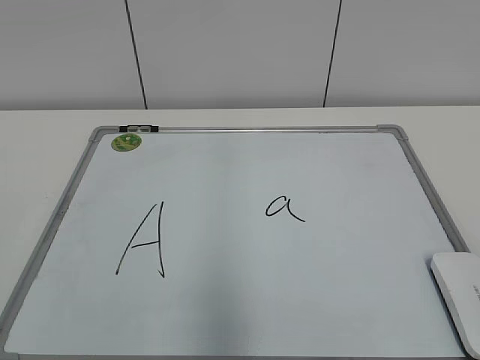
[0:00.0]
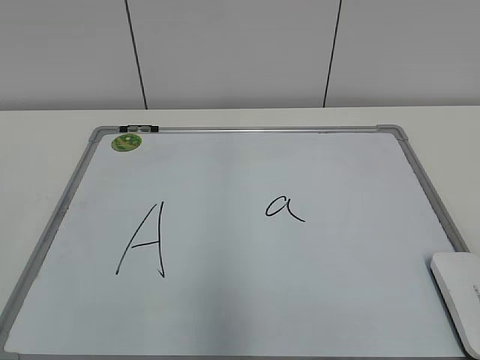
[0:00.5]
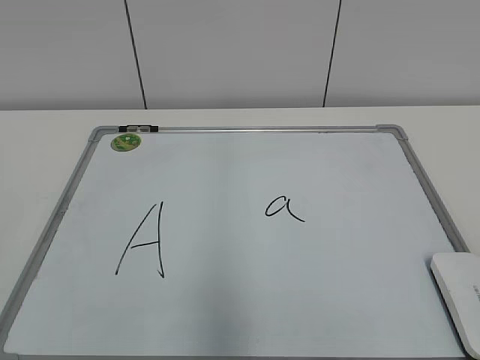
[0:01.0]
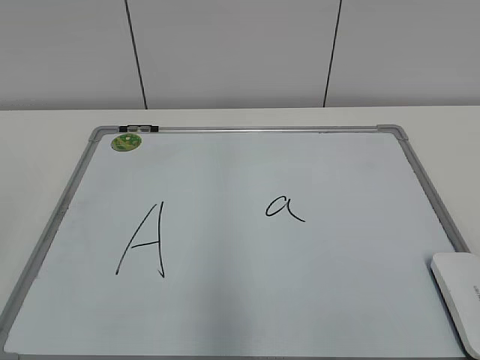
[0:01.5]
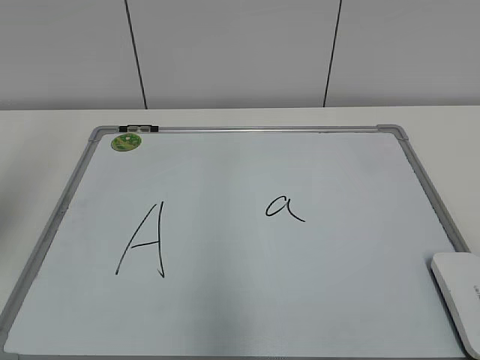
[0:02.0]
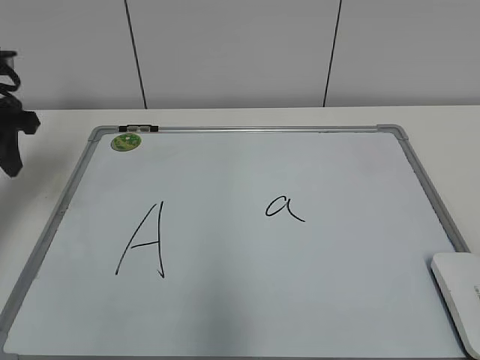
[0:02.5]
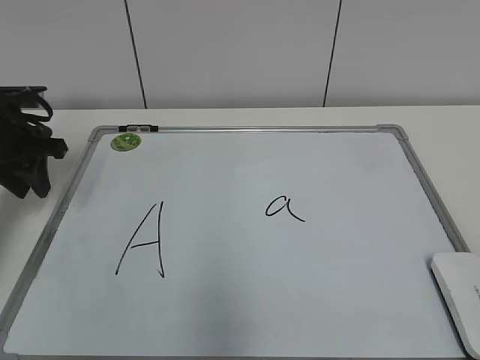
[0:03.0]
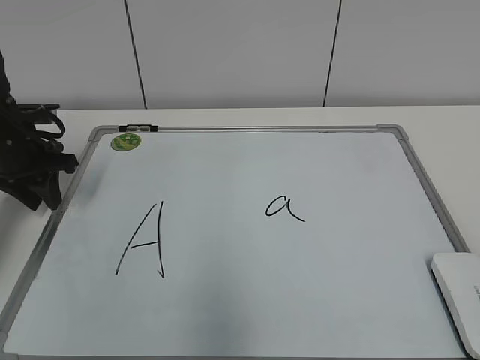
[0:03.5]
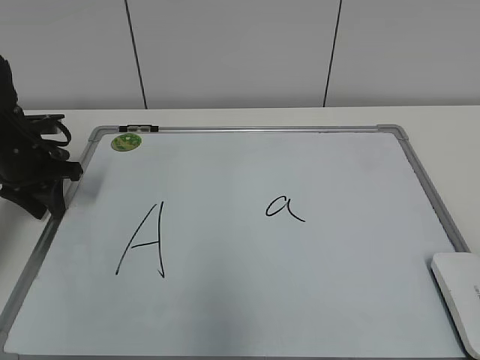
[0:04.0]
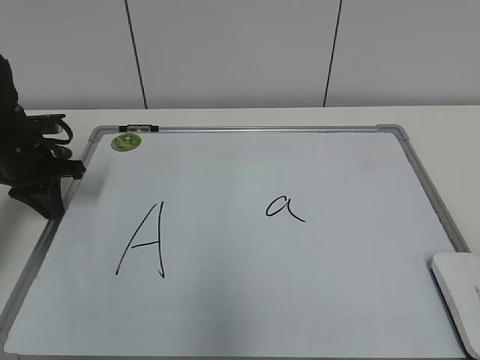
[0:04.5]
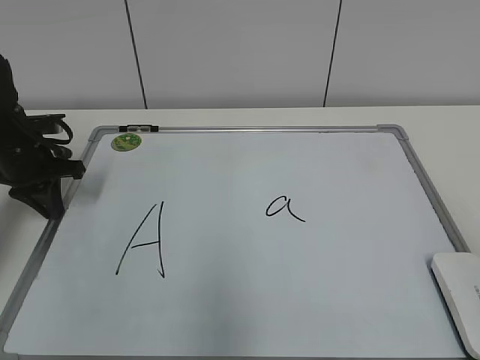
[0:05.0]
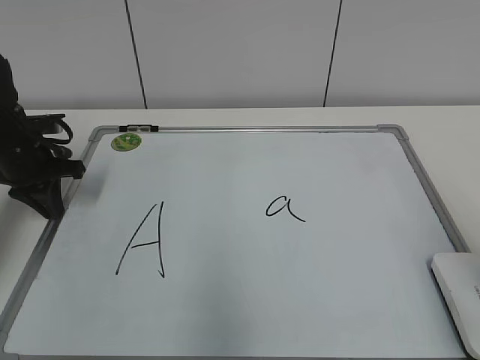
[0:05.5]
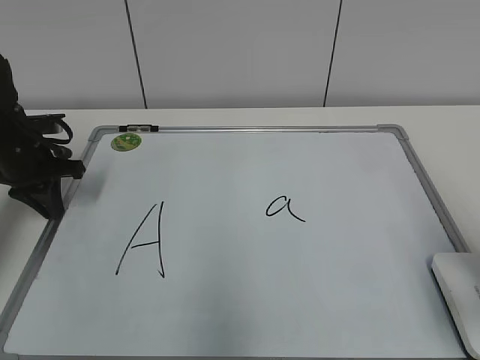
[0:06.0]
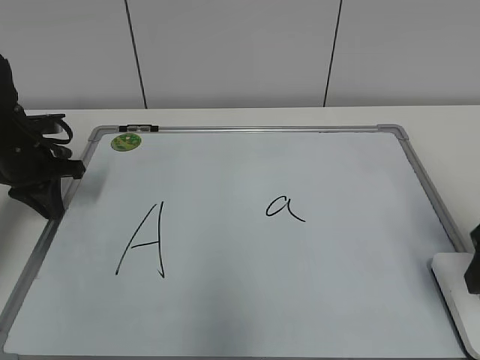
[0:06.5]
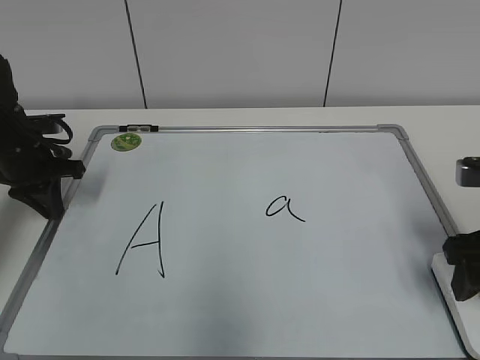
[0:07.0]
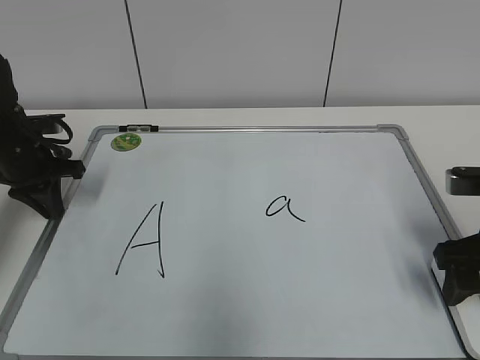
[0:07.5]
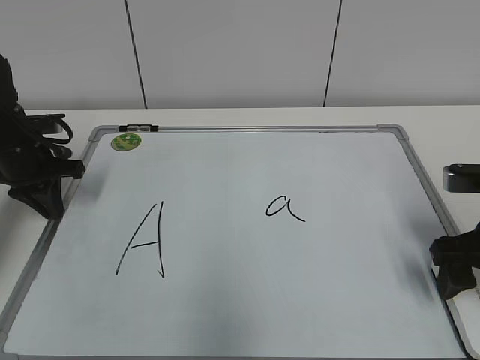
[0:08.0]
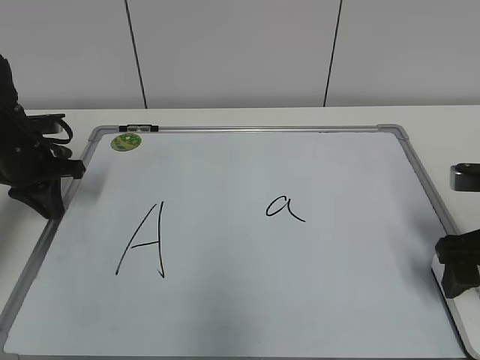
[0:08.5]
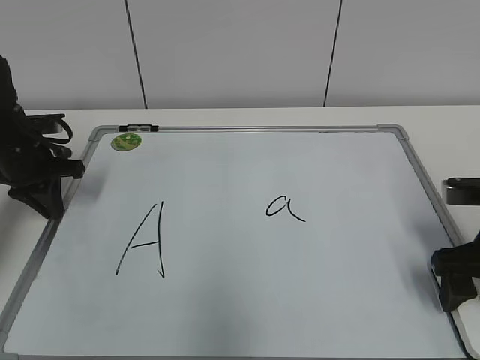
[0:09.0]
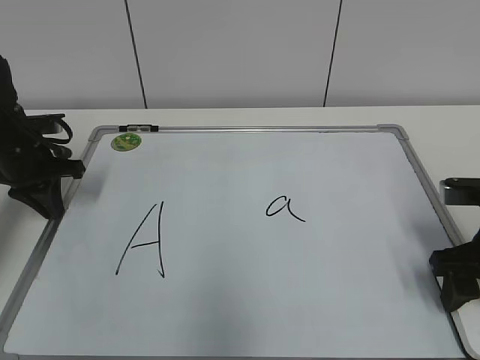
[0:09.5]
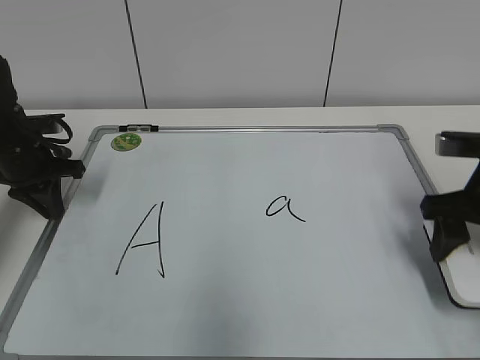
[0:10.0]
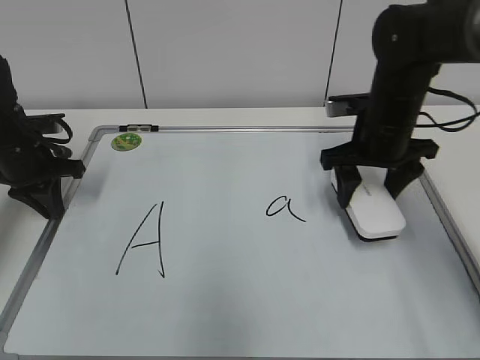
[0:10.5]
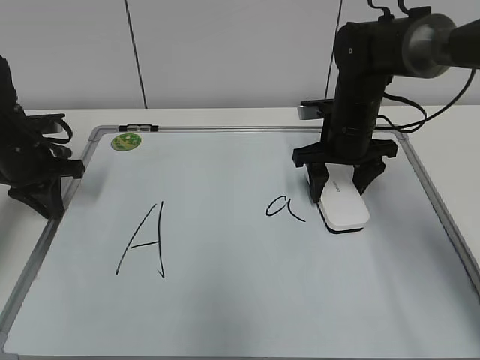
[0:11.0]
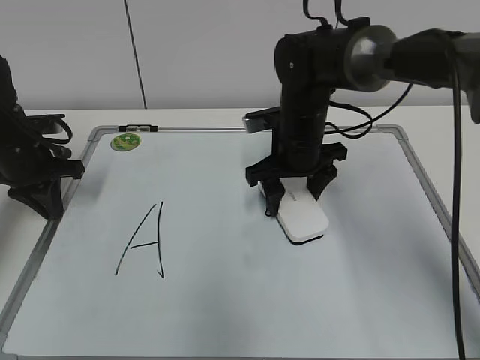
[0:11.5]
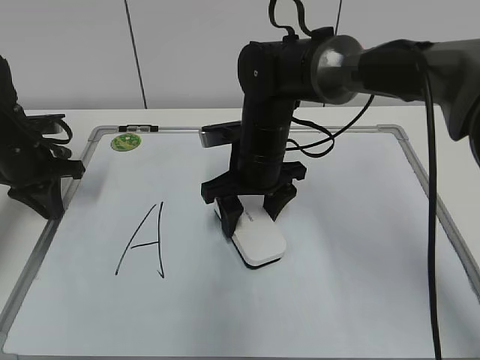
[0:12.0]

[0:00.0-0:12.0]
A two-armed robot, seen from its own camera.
Task of the whole recording: pick up the eraser on the blackboard and erase the letter "a".
Step, 0:00.0 to 0:04.0: Hold the drawing board steady with your left hand.
Step, 0:04.5 to 0:09.5: Grab the eraser with your right hand.
Step, 0:10.0 to 0:12.0: Erase the letter a with your right hand.
0:02.0 to 0:04.0: The left gripper heads downward and forward, covering roughly 25 cm.
0:04.0 to 0:06.0: The right gripper is displaced forward by roughly 20 cm. Meanwhile the left gripper closes its fingers.
0:06.0 to 0:08.0: The right gripper is displaced forward and downward by some 10 cm, and opens its fingers.
0:08.0 to 0:10.0: The right gripper closes.
0:10.0 to 0:12.0: The right gripper travels to the left and forward by some 25 cm.

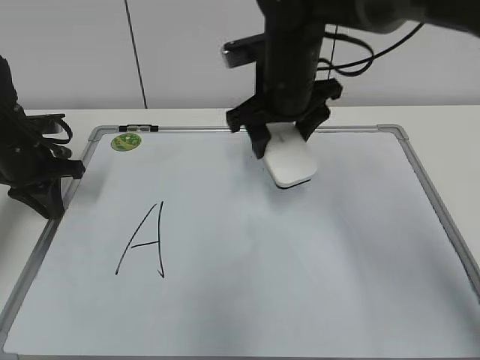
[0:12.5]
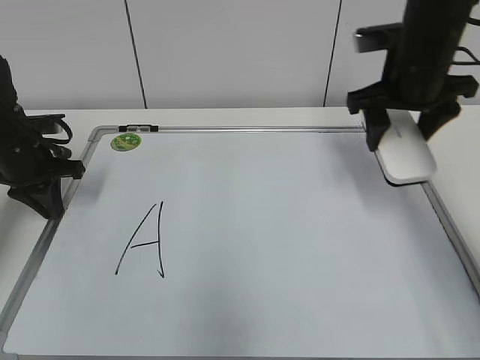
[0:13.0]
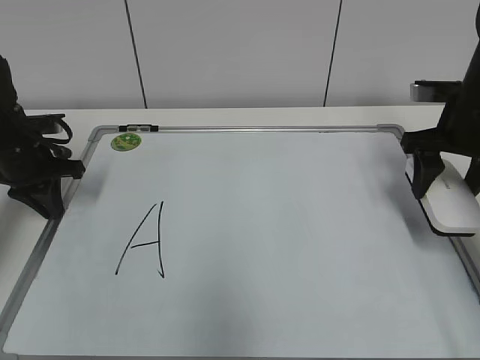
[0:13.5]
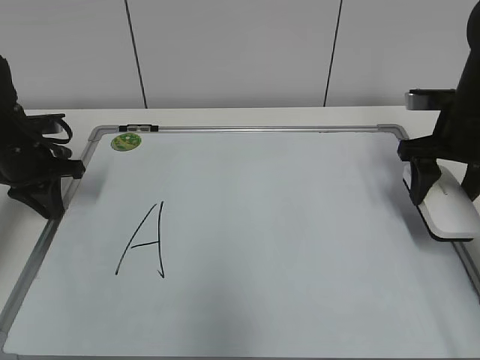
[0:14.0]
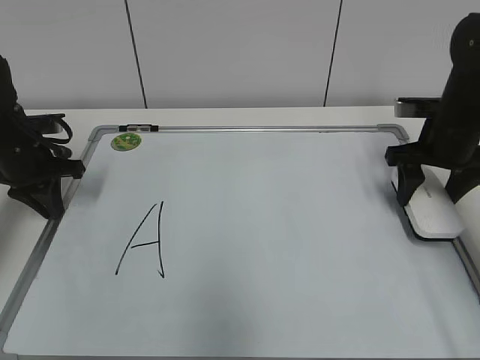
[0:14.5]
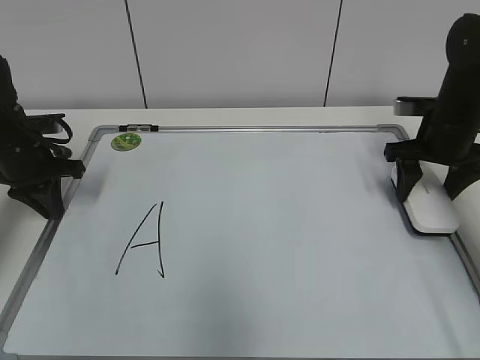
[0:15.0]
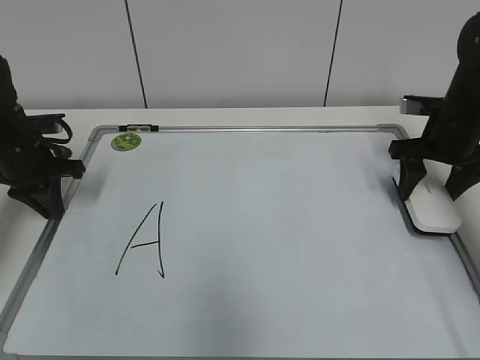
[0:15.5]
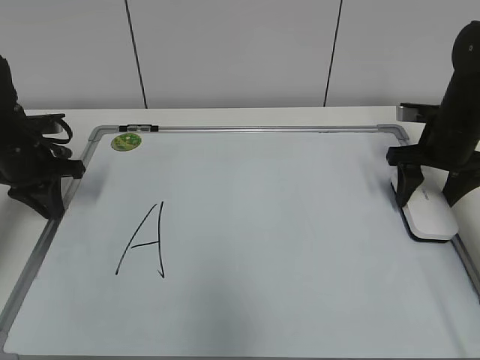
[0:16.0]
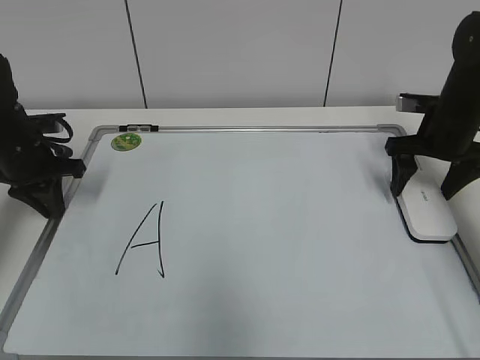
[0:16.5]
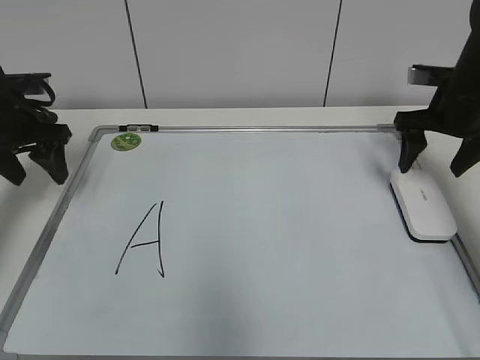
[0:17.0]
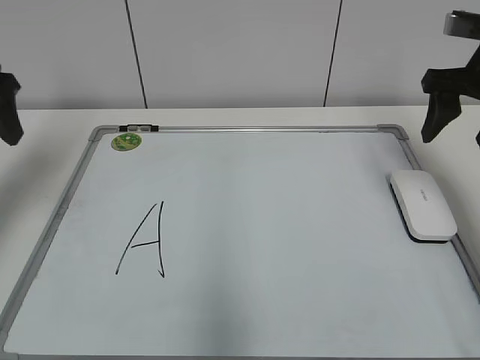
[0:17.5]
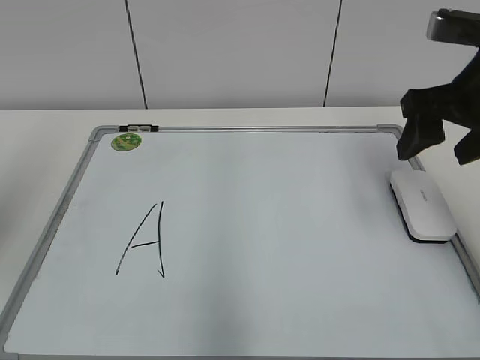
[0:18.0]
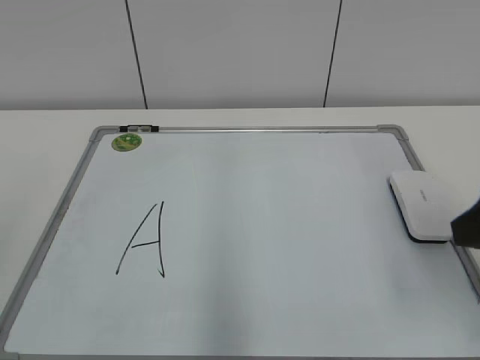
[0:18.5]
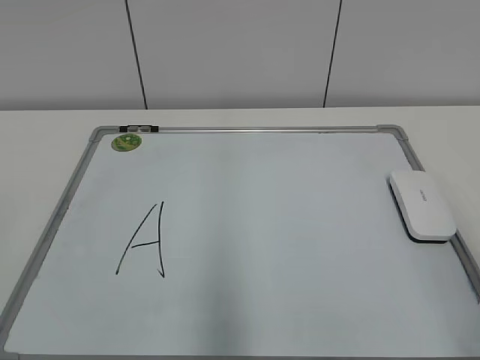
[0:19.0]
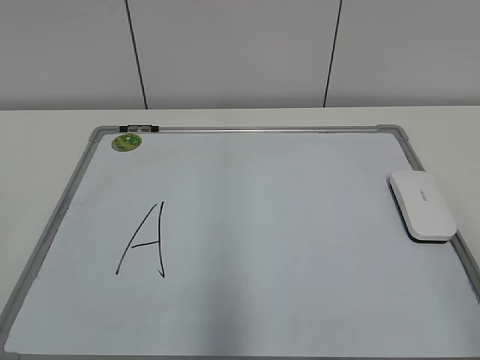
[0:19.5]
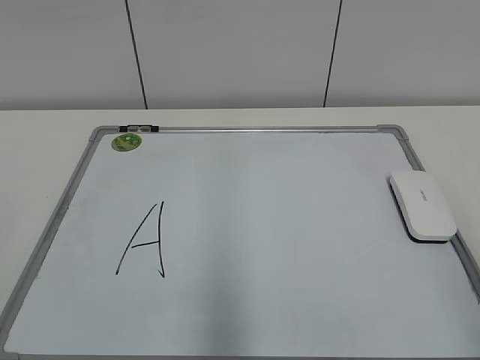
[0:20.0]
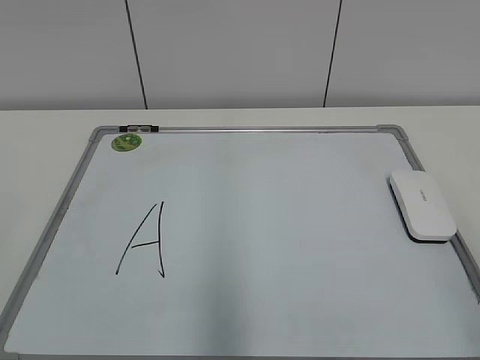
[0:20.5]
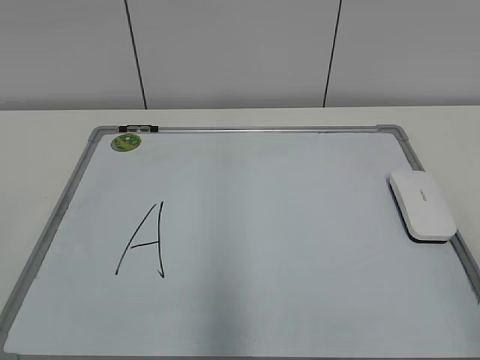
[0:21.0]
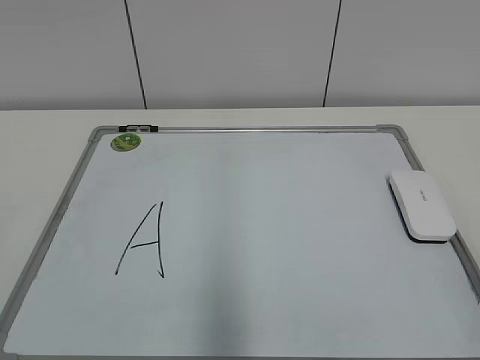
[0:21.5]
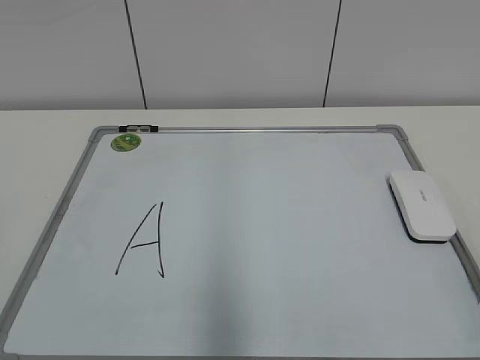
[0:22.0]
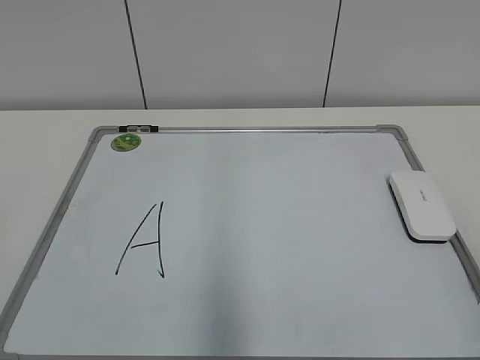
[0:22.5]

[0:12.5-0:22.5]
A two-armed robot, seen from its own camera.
Task of the whole recording: pick up the eraser on the blackboard and erase the letter "a".
Step, 0:12.5 to 0:16.0: Put down the eraser with your right hand.
0:12.5 to 0:14.5: The right gripper is displaced to the right by some 20 cm.
0:14.5 to 0:16.5: The right gripper opens its fingers.
0:16.5 to 0:18.5: The two grippers go some 35 cm backward and upward. The right gripper closes up, while the left gripper opens up.
0:18.5 to 0:20.5: The right gripper travels backward by about 15 cm.

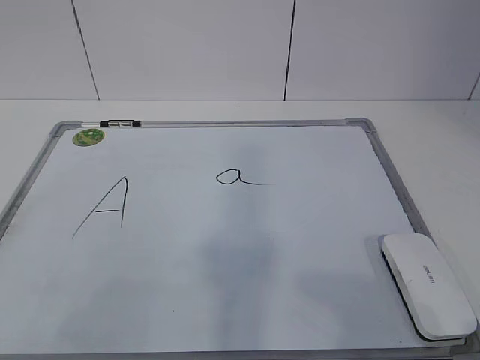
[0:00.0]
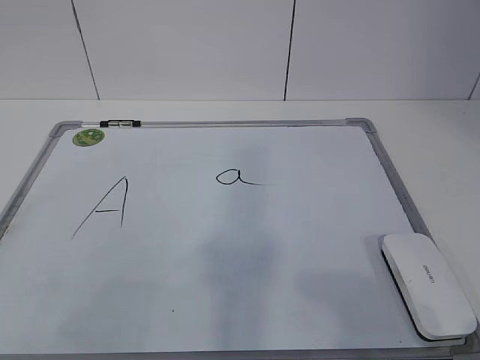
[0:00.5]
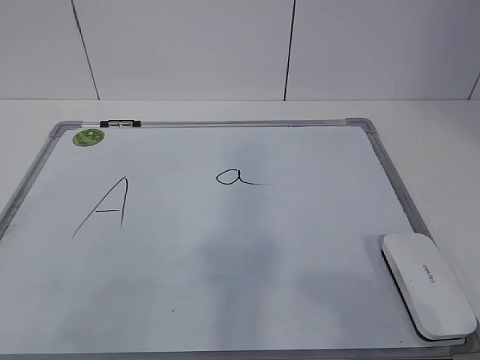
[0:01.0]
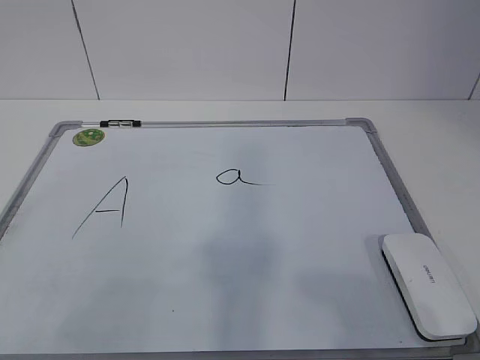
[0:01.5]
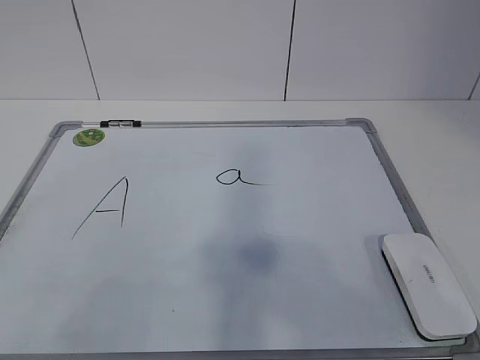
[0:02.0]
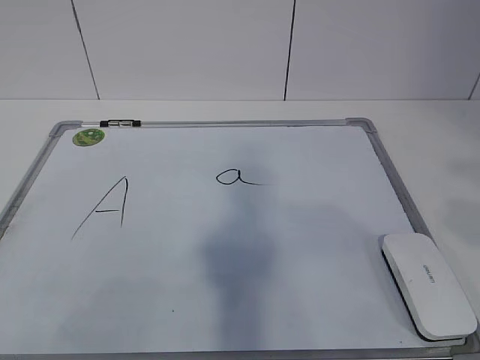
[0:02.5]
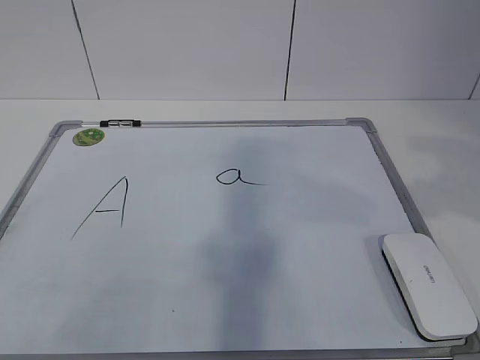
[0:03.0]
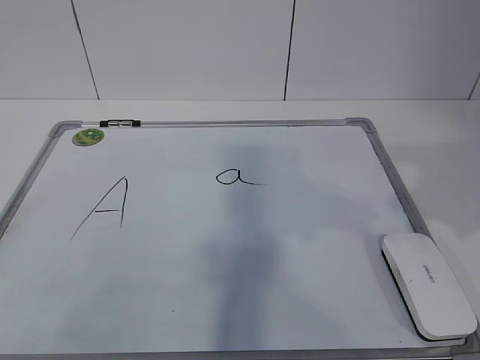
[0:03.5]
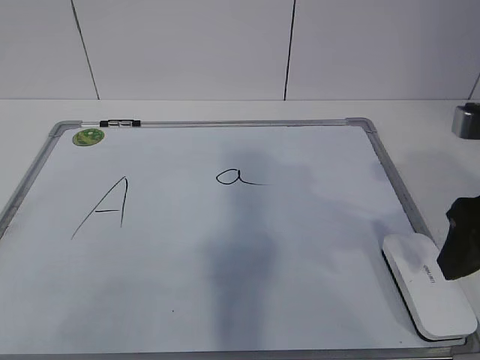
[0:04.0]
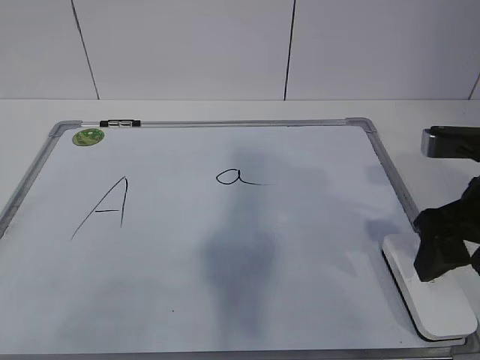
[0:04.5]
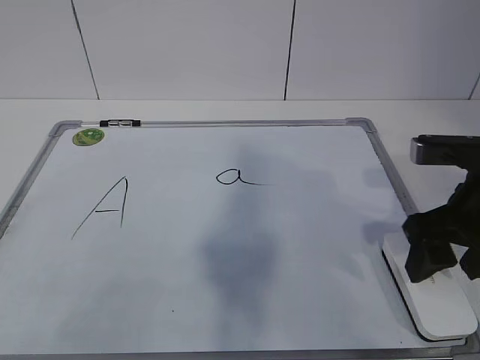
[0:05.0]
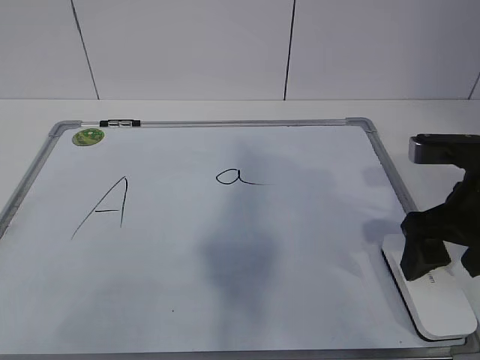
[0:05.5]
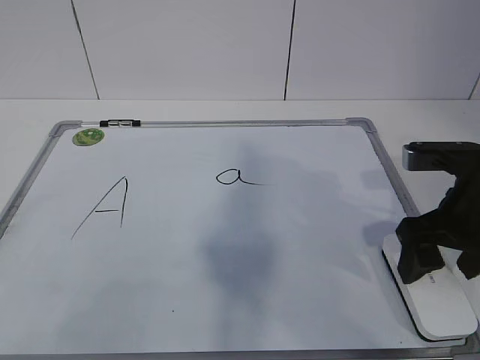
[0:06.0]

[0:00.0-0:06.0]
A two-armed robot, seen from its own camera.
Task of the whole recording: pick up the eraser on the blackboard and erase the letter "a".
0:02.0 to 0:04.0: The right gripper travels forward by some 25 cm.
0:04.0 to 0:06.0: The right gripper shifts roughly 5 cm downward, and opens up.
